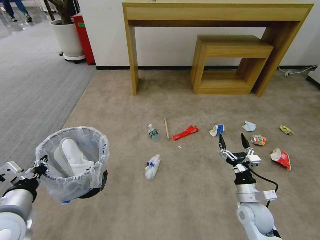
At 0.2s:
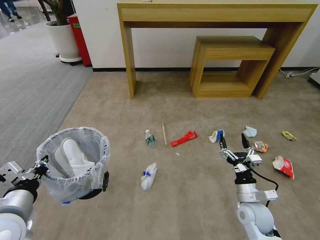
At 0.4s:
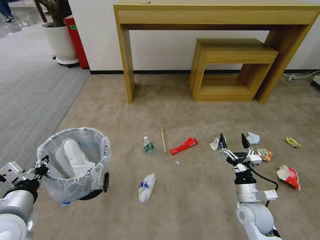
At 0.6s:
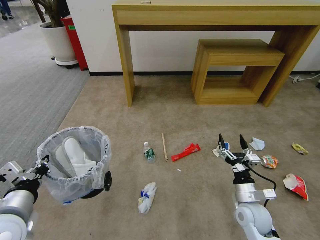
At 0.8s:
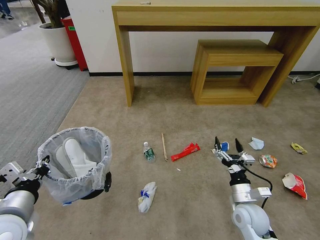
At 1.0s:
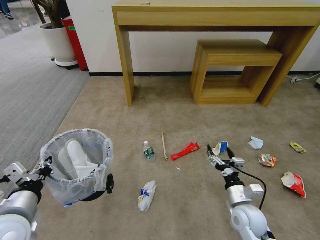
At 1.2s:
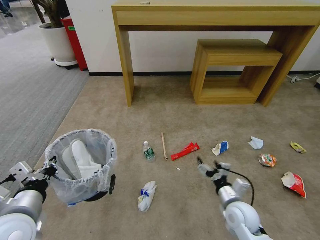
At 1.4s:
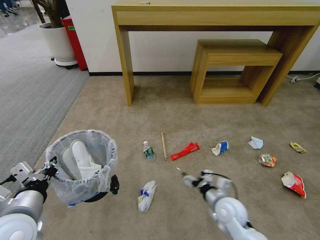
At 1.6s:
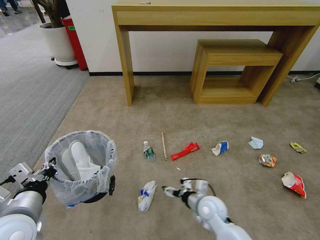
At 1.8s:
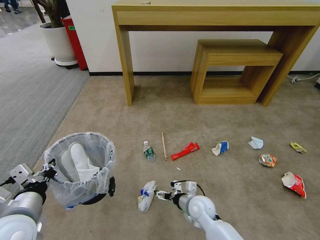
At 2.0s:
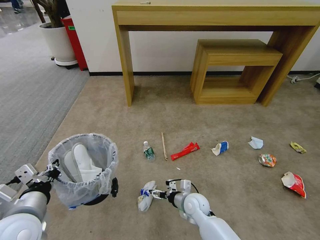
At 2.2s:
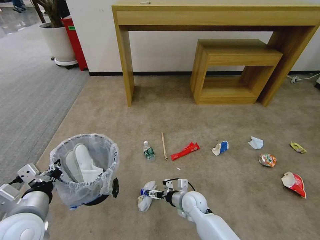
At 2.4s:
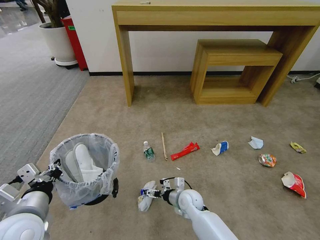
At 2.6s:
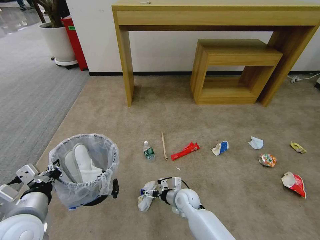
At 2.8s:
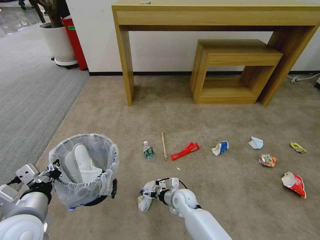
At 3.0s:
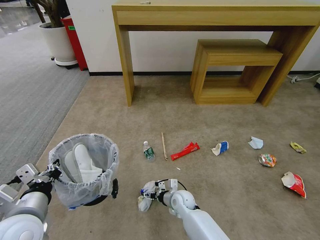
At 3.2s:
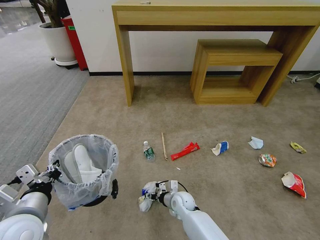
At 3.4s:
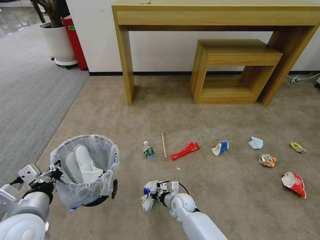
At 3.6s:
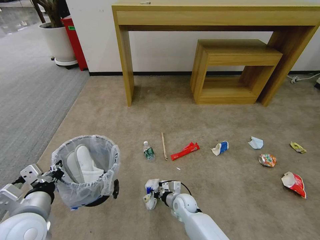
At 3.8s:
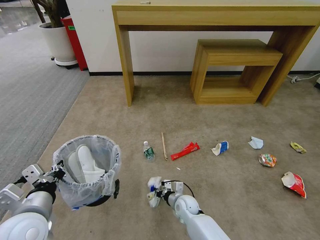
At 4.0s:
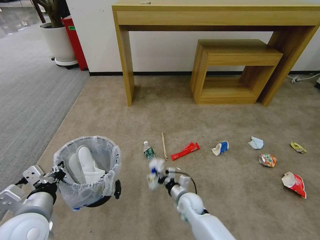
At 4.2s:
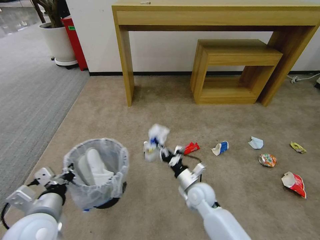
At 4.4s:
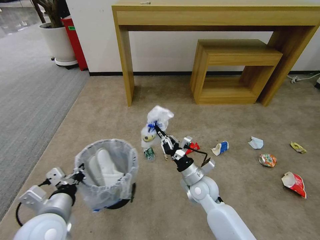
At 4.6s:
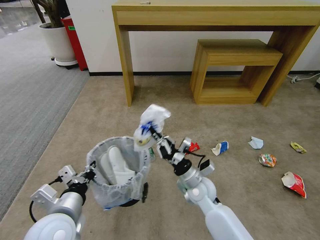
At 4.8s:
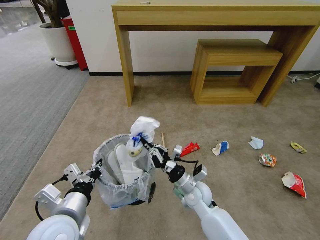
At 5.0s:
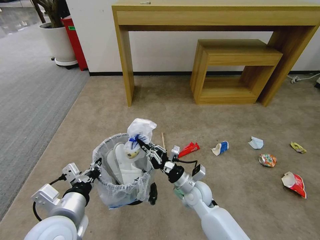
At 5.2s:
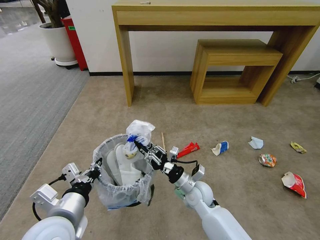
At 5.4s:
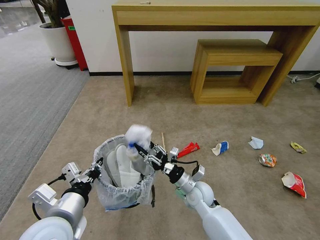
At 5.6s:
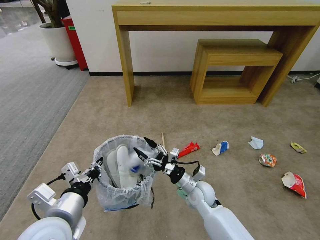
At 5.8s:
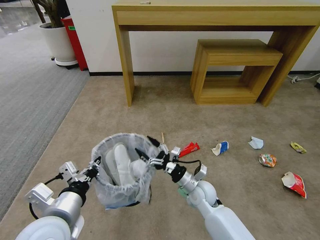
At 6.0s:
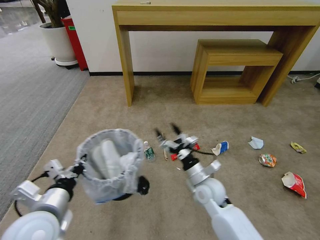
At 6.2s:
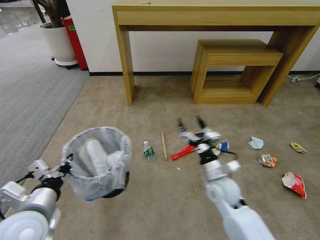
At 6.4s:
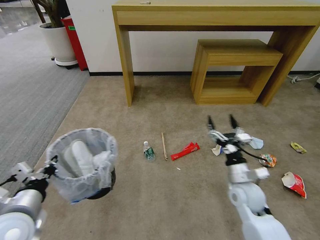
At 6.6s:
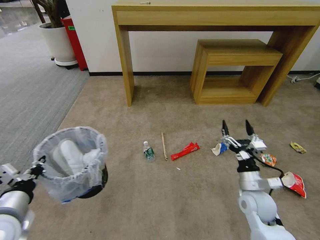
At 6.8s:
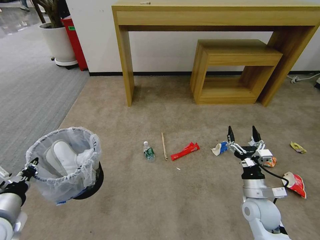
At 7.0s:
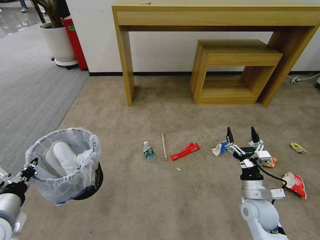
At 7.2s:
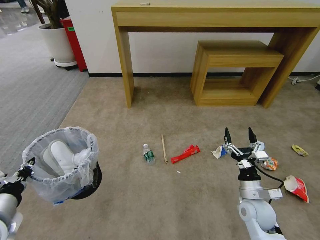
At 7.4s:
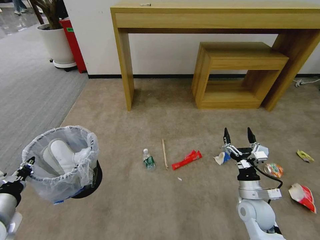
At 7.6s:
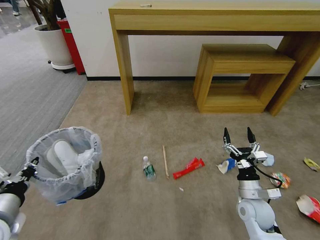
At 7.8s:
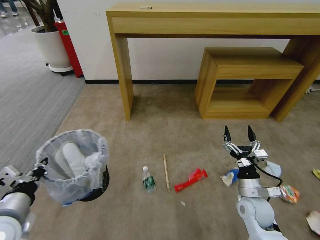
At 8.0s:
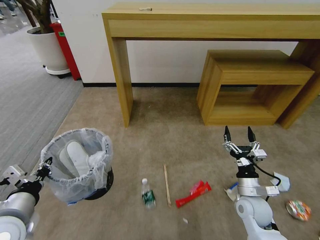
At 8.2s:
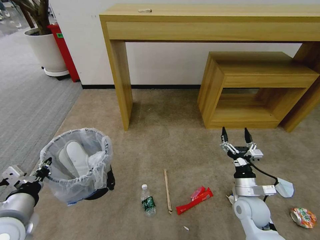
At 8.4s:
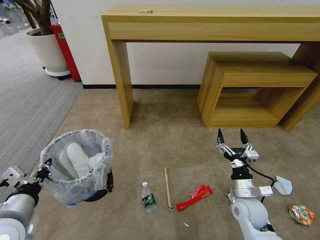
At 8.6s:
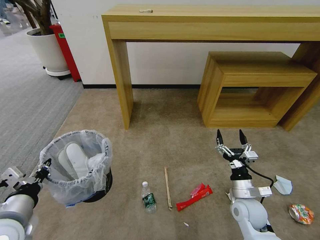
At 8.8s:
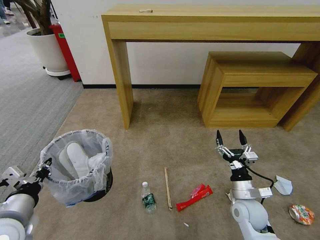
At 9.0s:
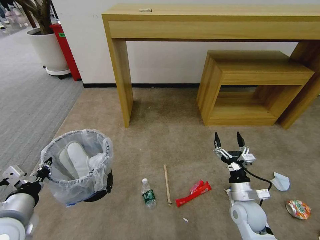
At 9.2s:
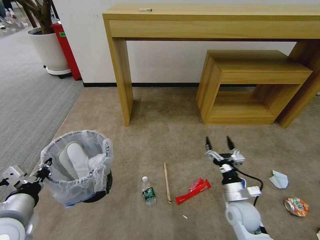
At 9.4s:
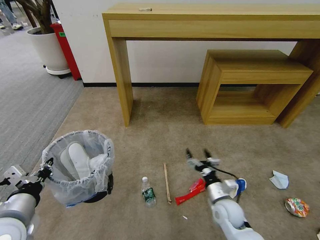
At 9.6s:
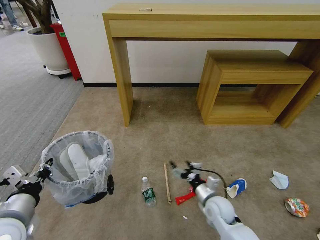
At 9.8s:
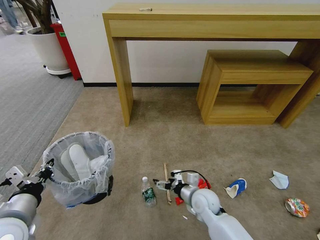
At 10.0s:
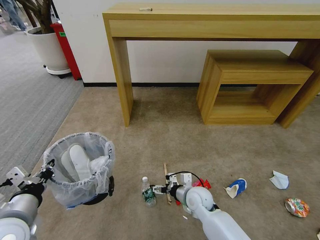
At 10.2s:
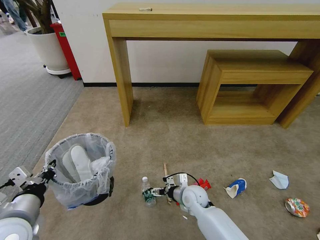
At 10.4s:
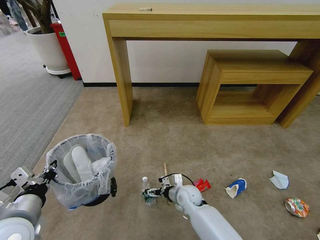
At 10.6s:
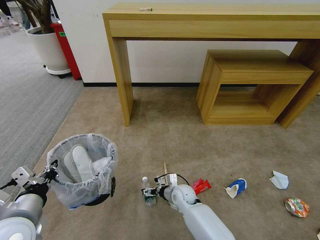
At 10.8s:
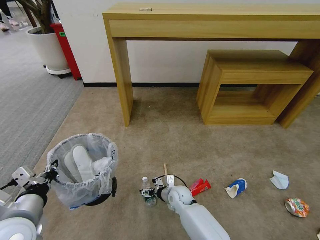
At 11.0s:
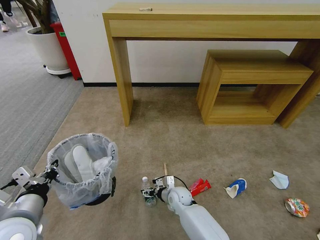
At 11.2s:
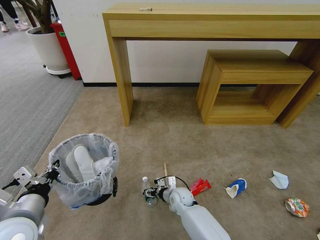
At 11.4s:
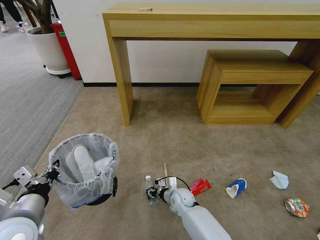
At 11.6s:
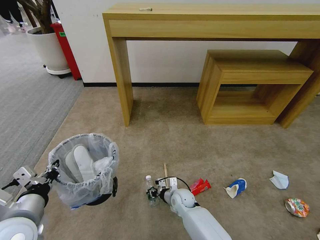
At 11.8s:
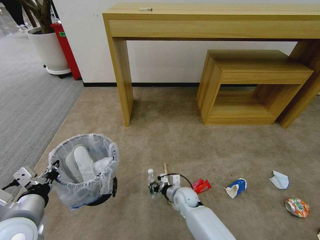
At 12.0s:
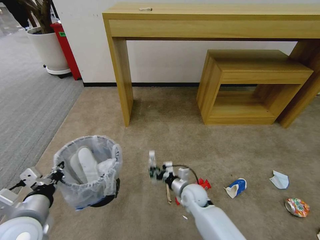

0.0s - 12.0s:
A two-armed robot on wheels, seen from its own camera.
Task of the whole recording: Pick up the trash bin and place the garbage on the floor into it.
0.0s - 1.6s: The right gripper moves to the left, some 15 cm.
1.6s - 3.0s: The right gripper shifts roughly 15 cm downward, to the left and forward.
3.0s - 4.4s: The right gripper is displaced upward by some 15 cm, and closes.
4.4s - 6.0s: The right gripper opens.
6.0s - 7.6s: The left gripper heads to the left, covering some 10 cm; the right gripper heads to the right and backward, covering some 15 cm.
9.0s - 10.4s: The right gripper shifts roughly 20 cm to the left, forward and downward.
10.4s - 12.0s: The right gripper closes its fingers.

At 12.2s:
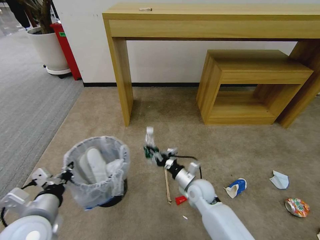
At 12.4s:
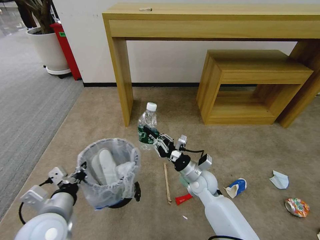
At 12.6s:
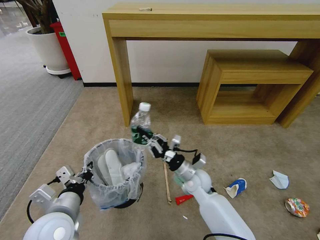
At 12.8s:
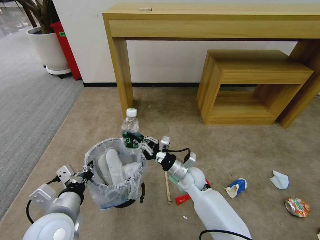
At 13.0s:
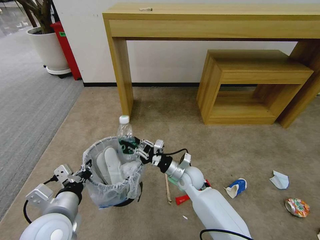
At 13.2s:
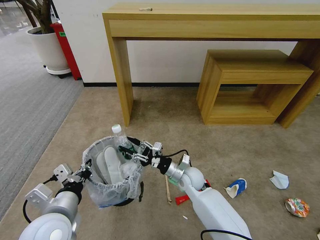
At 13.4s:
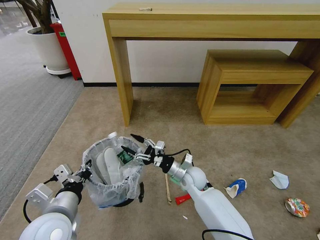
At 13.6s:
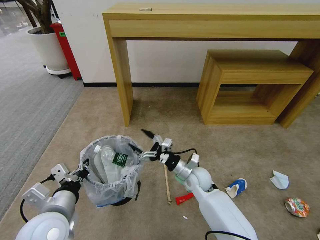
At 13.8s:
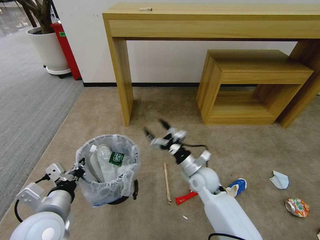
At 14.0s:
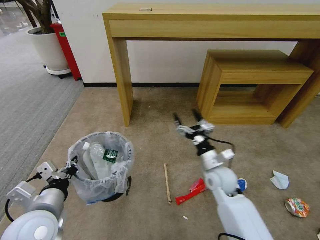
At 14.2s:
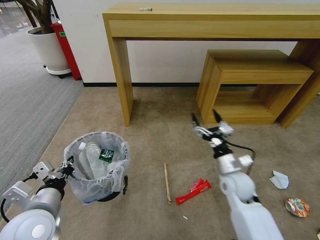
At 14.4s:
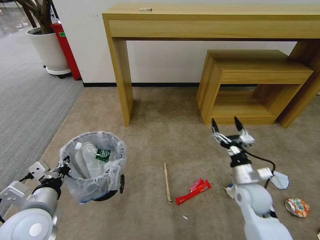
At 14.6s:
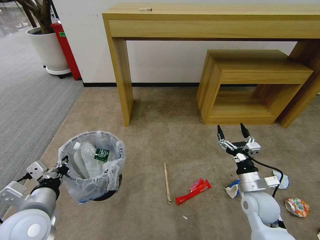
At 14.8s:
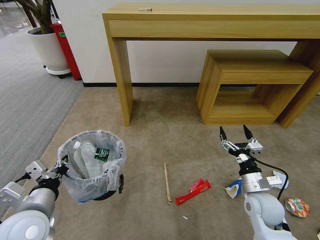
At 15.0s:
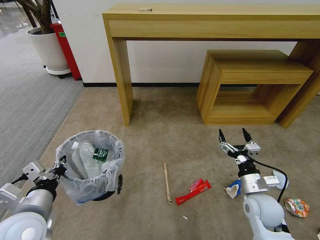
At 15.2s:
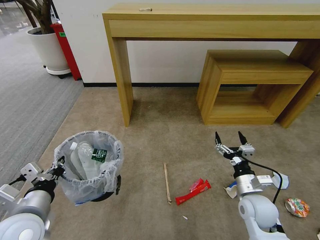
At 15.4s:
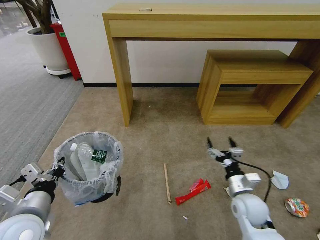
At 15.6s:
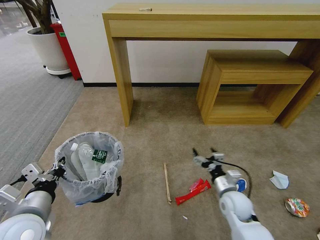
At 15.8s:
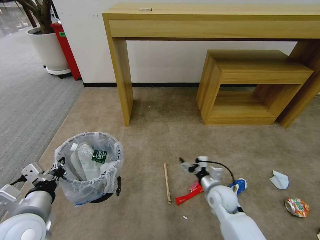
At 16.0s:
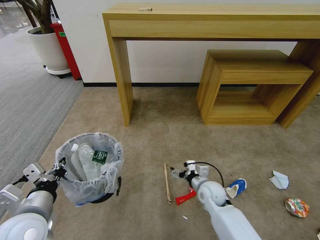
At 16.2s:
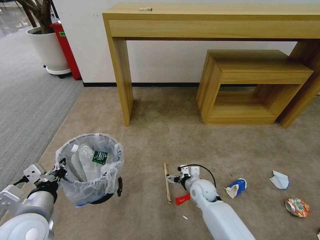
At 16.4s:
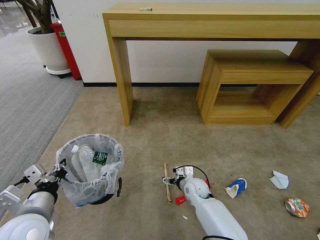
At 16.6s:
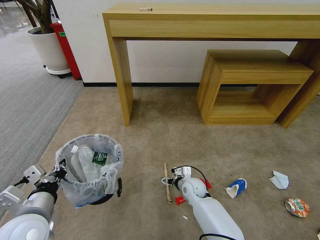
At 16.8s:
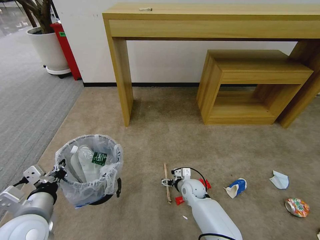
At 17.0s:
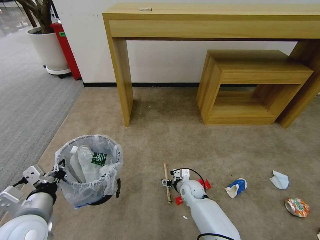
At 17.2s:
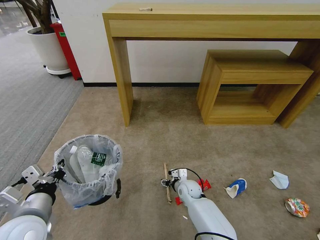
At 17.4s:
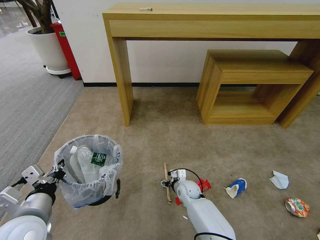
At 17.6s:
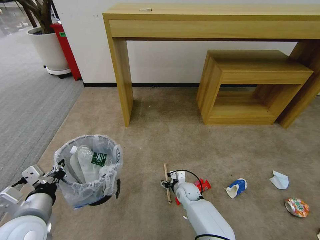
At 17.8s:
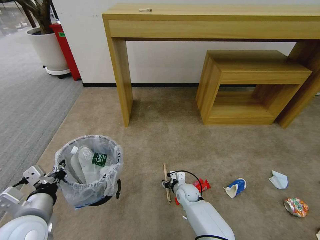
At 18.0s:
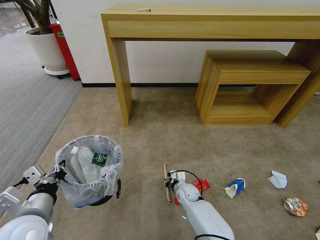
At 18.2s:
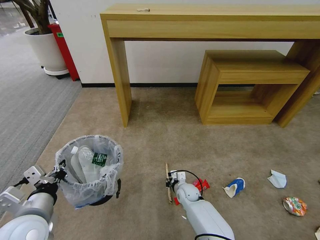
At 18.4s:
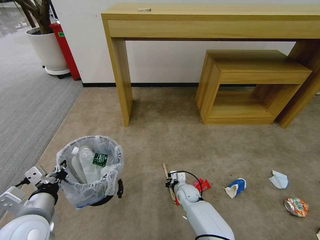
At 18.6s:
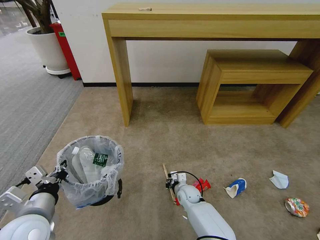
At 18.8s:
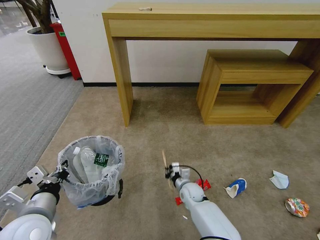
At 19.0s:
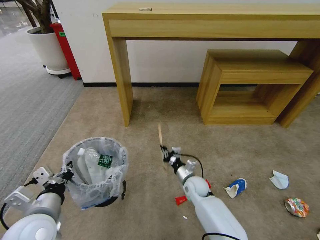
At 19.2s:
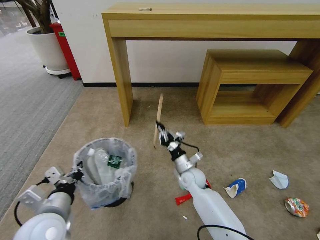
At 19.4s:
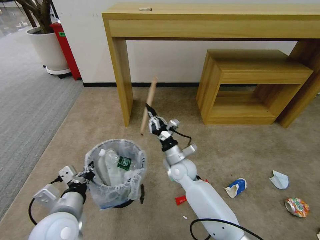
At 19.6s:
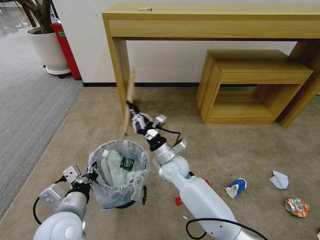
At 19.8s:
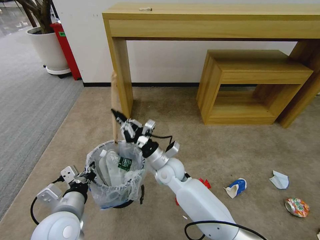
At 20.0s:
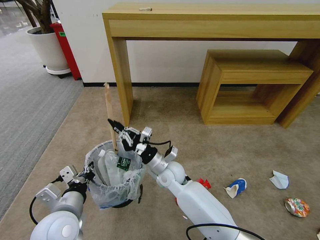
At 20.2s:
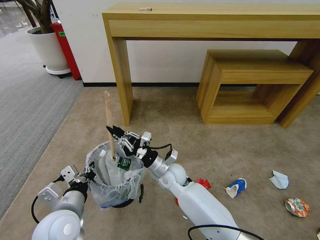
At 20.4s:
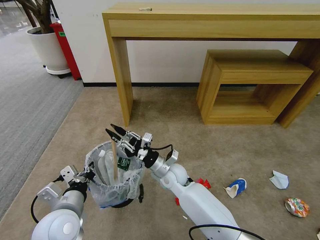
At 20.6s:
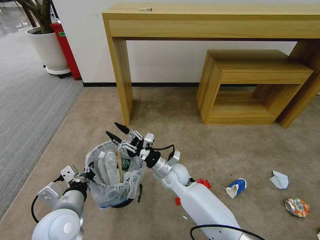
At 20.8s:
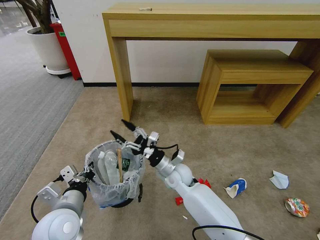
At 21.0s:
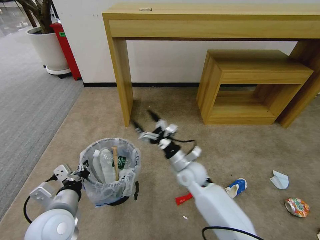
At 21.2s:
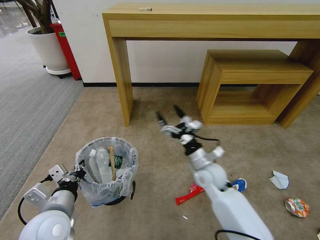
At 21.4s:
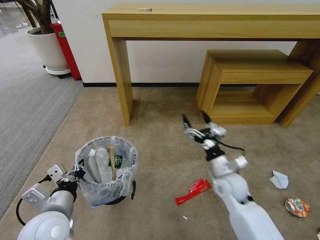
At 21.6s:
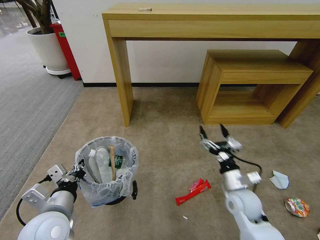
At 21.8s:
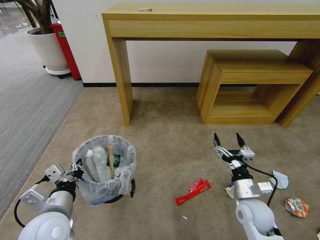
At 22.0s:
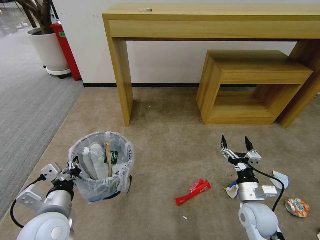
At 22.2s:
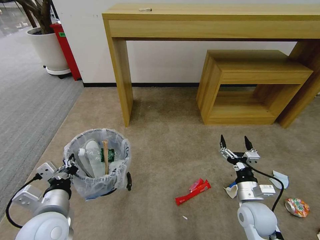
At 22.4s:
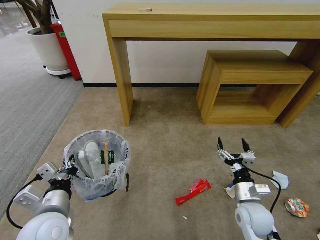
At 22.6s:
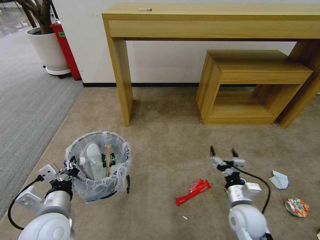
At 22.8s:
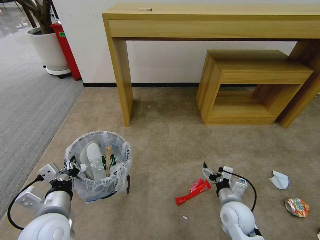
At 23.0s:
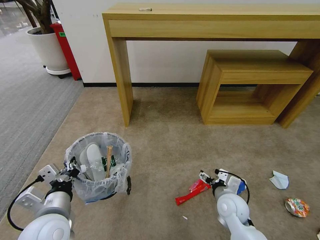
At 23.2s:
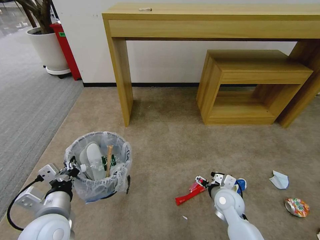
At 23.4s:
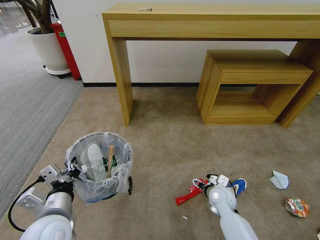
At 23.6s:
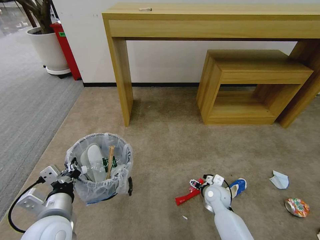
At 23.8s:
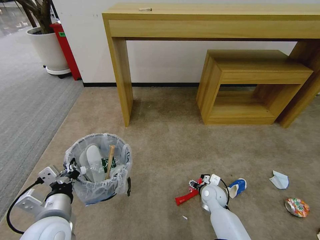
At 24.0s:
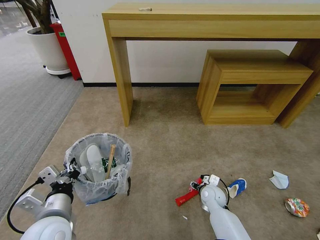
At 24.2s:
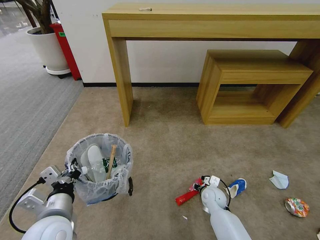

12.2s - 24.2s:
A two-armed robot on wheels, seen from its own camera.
Task of the whole recording: Pick up the trash bin and place the garbage on the floor into it.
12.2s - 13.8s: The right gripper opens.
13.8s - 15.2s: The right gripper moves to the right and backward, about 20 cm.
15.2s - 16.6s: The right gripper heads to the left, downward and forward, covering roughly 25 cm.
16.6s - 18.2s: The right gripper goes some 5 cm downward, and closes up.
18.2s - 19.8s: The left gripper shifts some 5 cm to the right, while the right gripper is displaced upward and to the left by about 25 cm.
19.8s - 21.2s: The right gripper is displaced to the right by some 15 cm, and opens up.
21.2s - 22.6s: The right gripper goes approximately 15 cm backward, to the right and downward.
22.6s - 24.2s: The right gripper heads downward and forward, covering some 15 cm, and closes its fingers.
